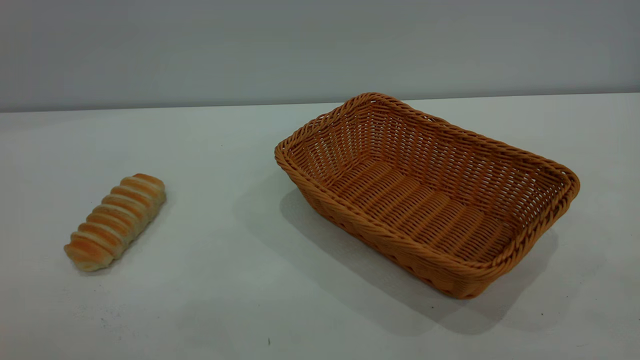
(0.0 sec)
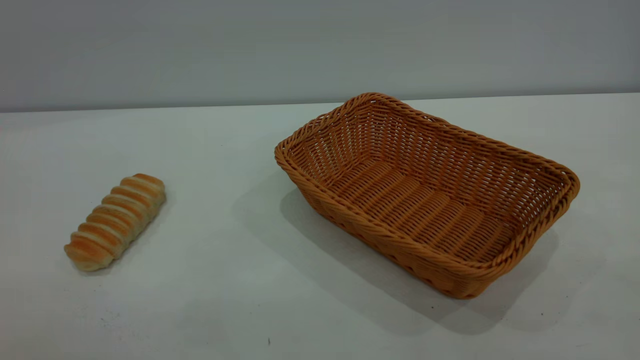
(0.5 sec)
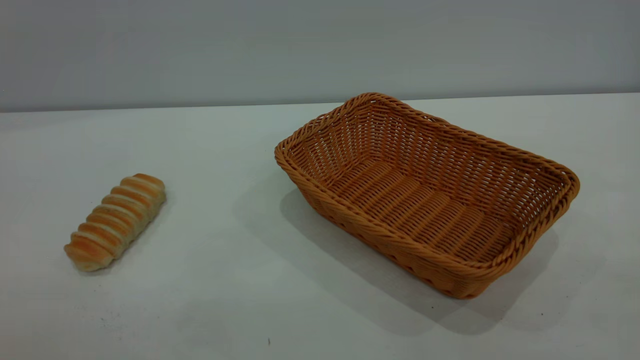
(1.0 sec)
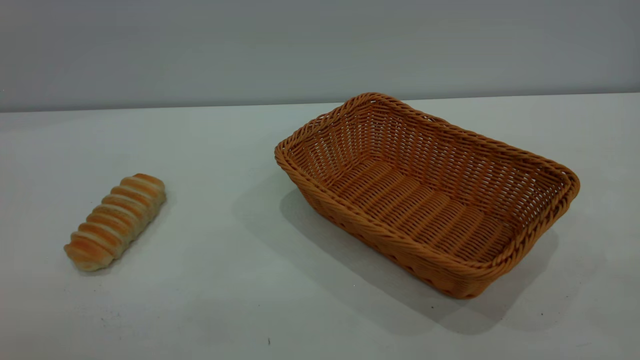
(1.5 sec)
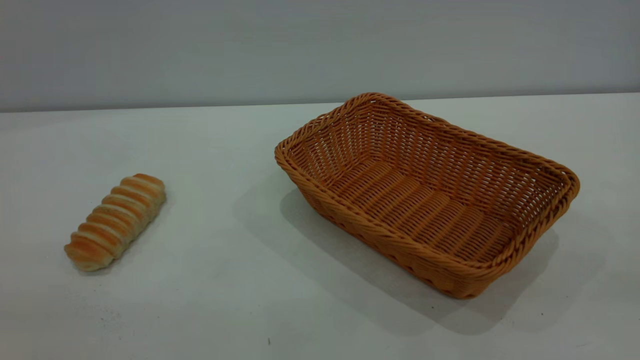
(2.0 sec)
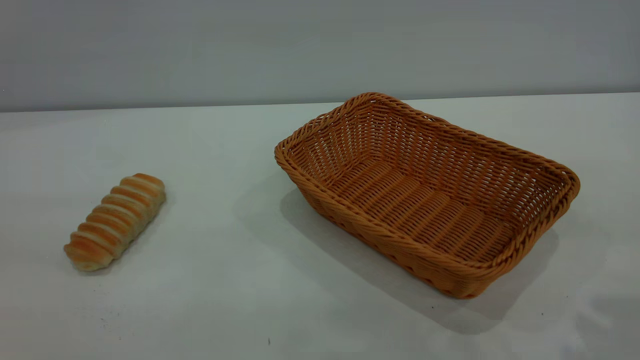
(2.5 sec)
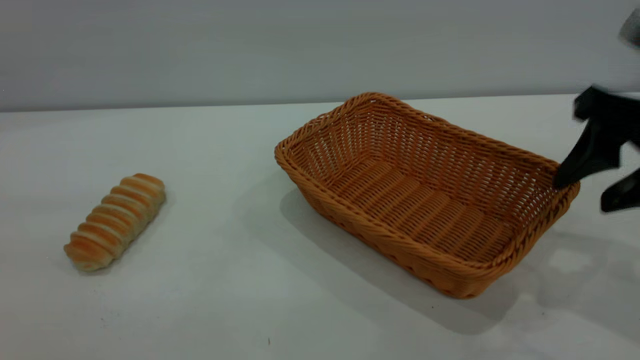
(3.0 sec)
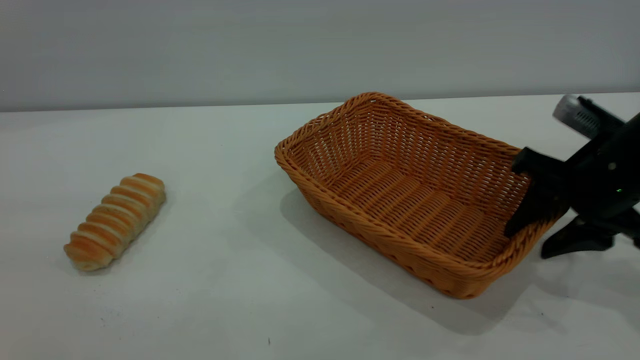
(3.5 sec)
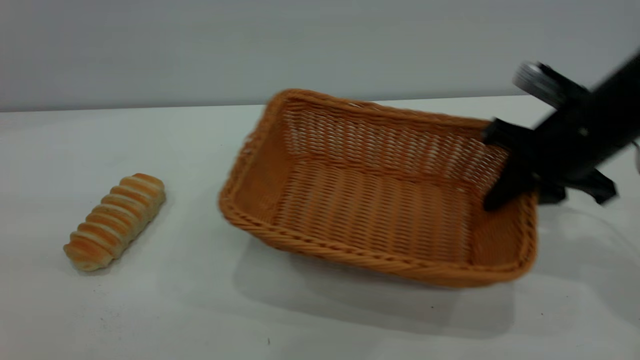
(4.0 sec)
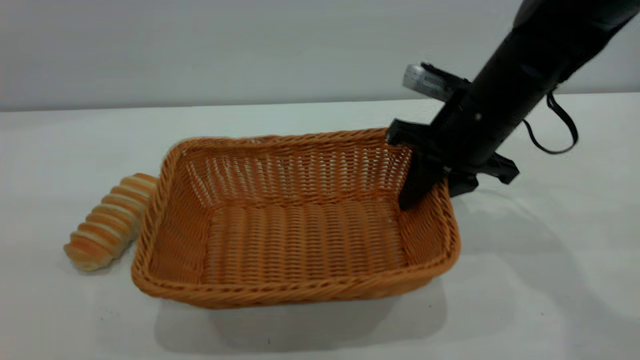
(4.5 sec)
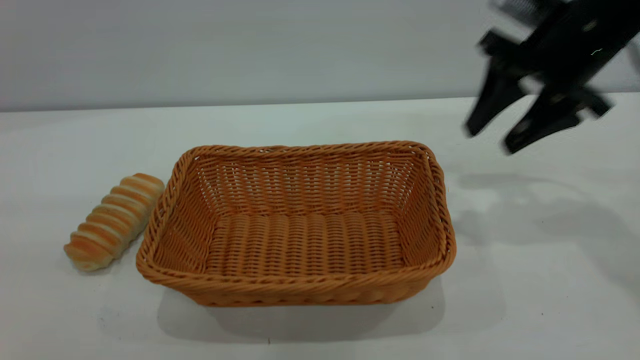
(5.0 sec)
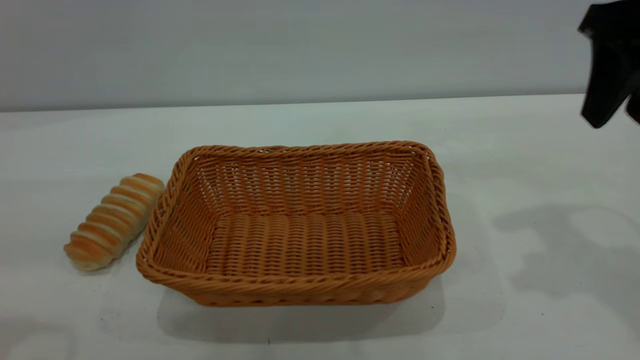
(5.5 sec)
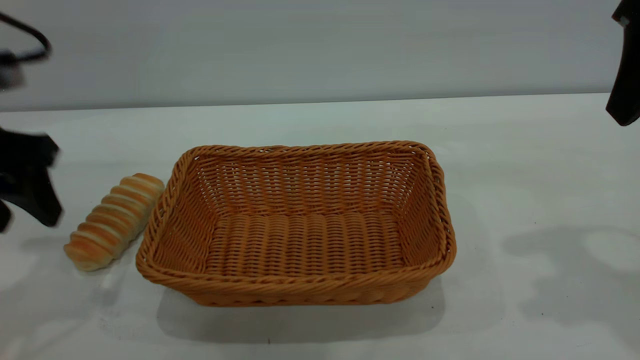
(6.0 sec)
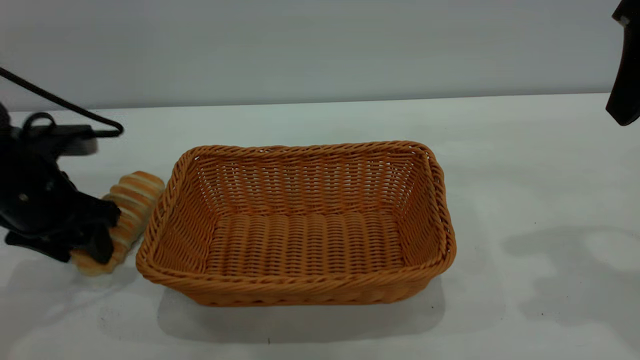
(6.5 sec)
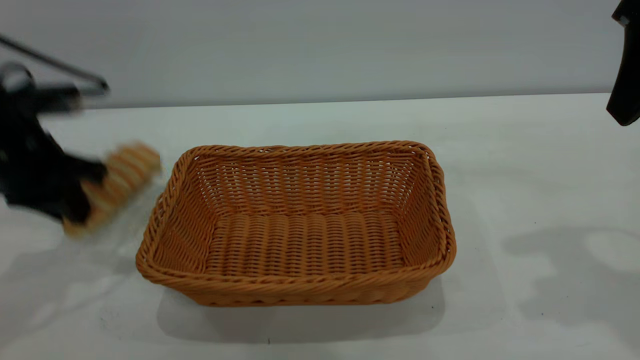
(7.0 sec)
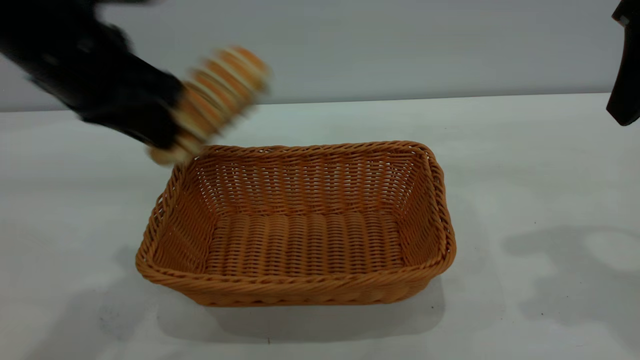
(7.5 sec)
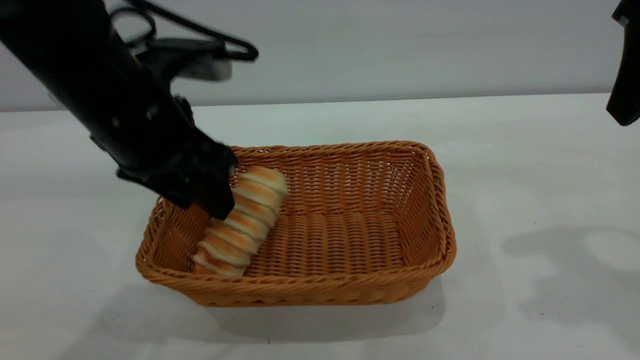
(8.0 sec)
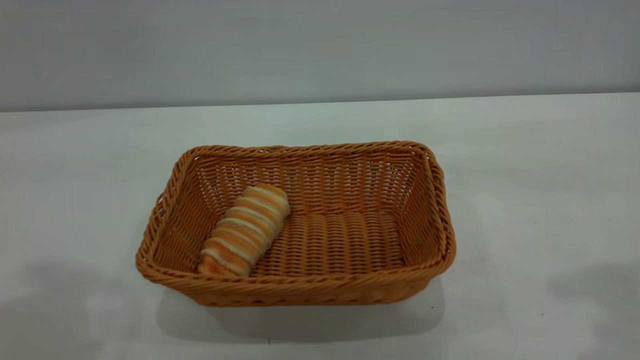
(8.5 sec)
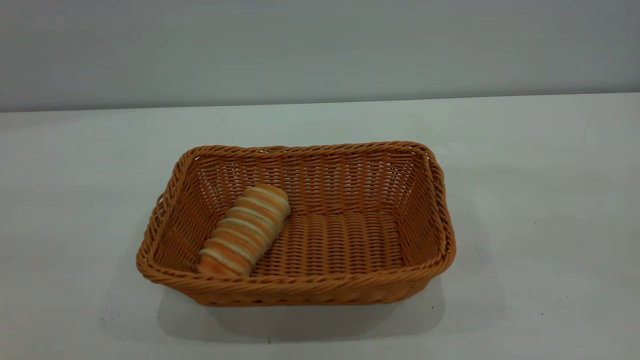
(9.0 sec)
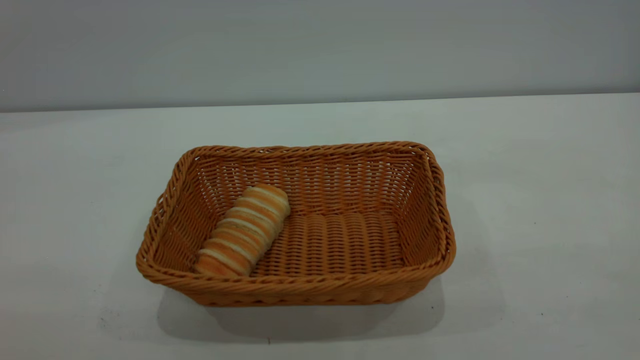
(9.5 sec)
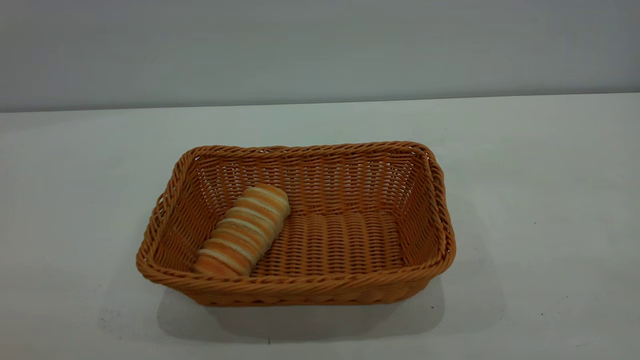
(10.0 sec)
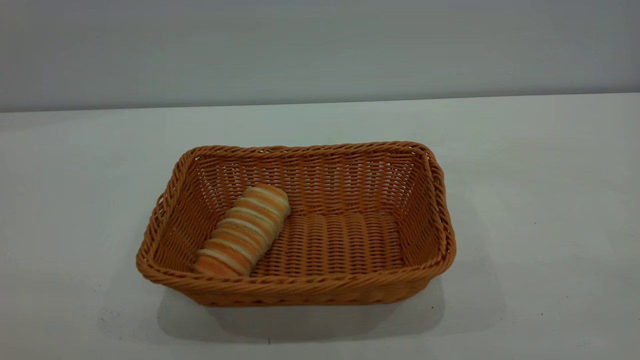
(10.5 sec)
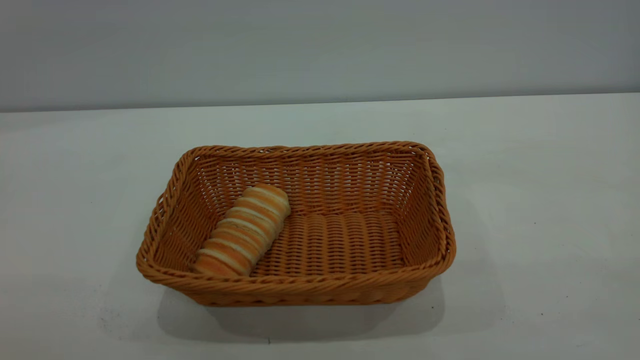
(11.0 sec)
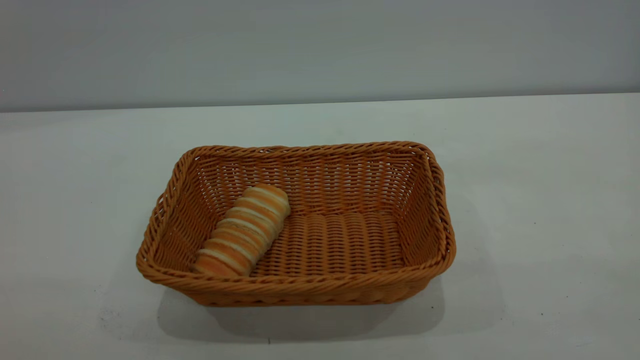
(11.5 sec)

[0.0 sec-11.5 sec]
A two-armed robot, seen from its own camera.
Task of the whole recording: One hand grasps the yellow basket and places it in the middle of the table, while the other hand picks up the long bread and puts it into the yellow basket.
Step, 0.0 sec to 4.5 sec: Move the basket to the center of view.
Step, 7.5 sec to 8.0 sec: place the bread into the basket.
2.0 sec to 4.0 sec: The right gripper heads forward and downward, covering roughly 35 cm, and closes its fingers. The left gripper is displaced forward by some 5 cm.
4.0 sec to 6.0 sec: The right gripper heads upward and backward, covering about 20 cm, and opens up, while the left gripper moves forward and downward, about 30 cm.
6.0 sec to 7.5 sec: The left gripper heads to the right and upward, covering some 15 cm, and closes its fingers.
7.5 sec to 9.5 sec: The right gripper is displaced backward by some 30 cm, while the left gripper shifts roughly 35 cm backward and to the left, and opens.
